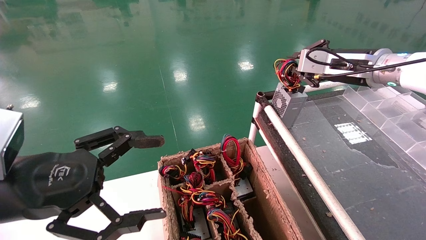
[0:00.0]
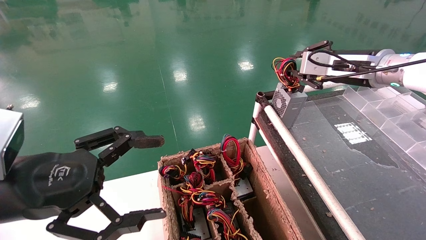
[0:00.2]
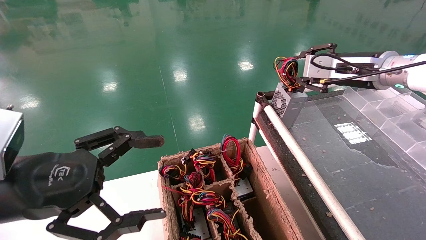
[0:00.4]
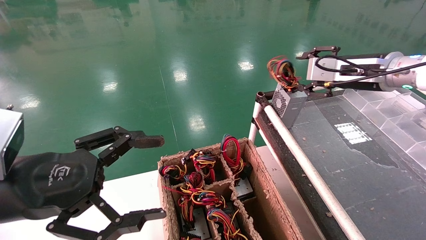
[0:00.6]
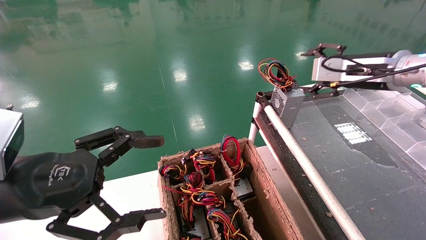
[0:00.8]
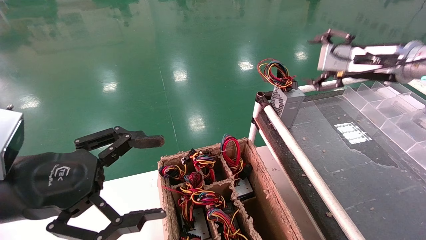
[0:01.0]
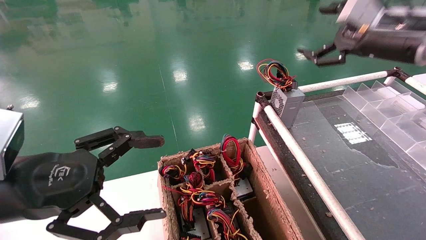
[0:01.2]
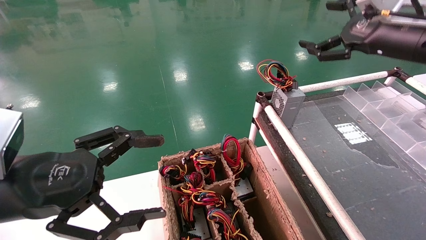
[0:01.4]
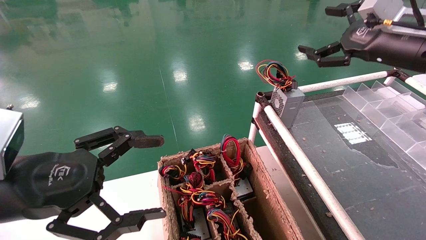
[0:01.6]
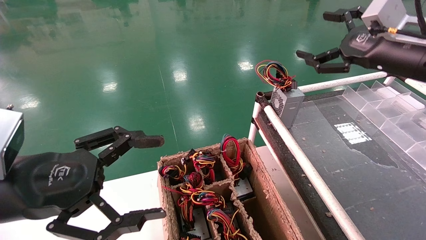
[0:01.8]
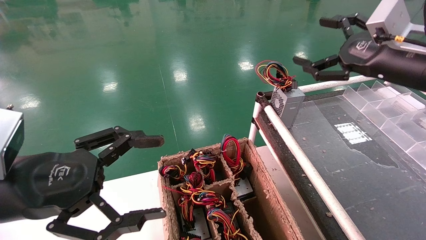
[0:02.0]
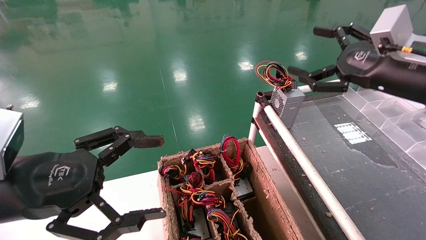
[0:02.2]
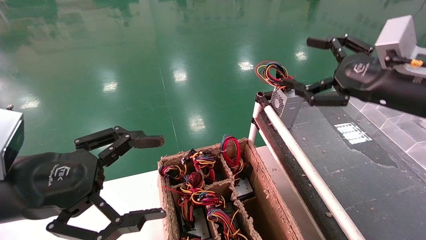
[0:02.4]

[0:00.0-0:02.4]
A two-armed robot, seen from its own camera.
0:00.0 to 0:01.2: The right gripper moves approximately 5 cm, and opens up.
0:01.2 to 0:02.4: The right gripper is displaced backward and downward by some 10 cm.
